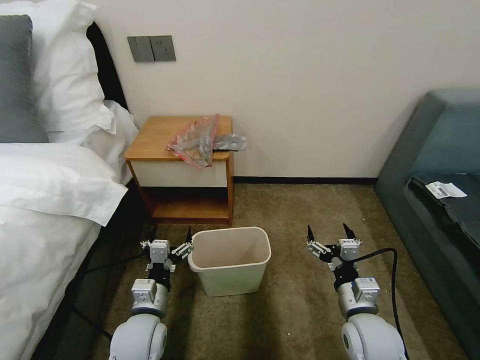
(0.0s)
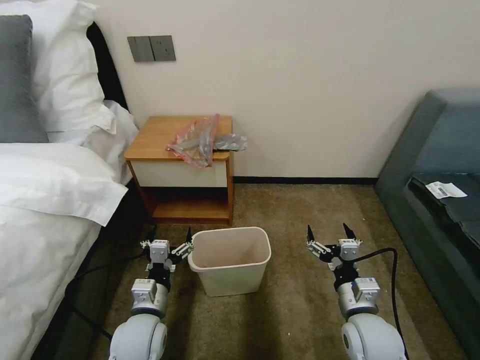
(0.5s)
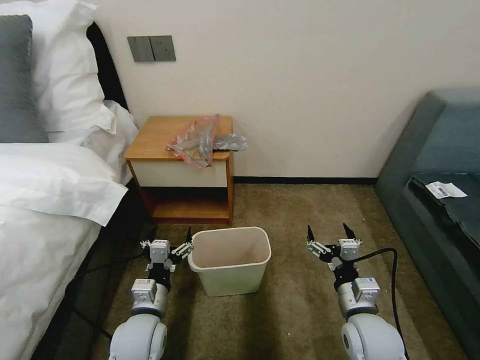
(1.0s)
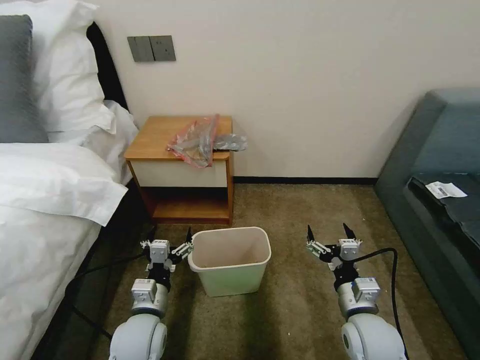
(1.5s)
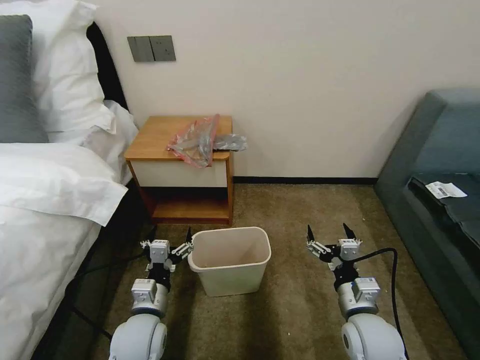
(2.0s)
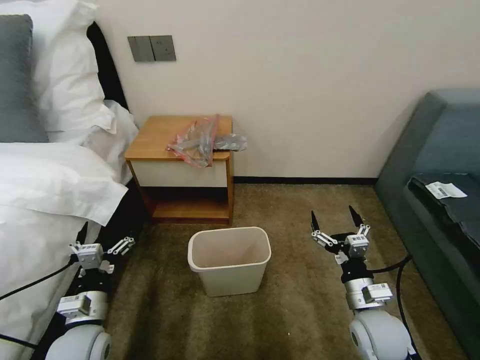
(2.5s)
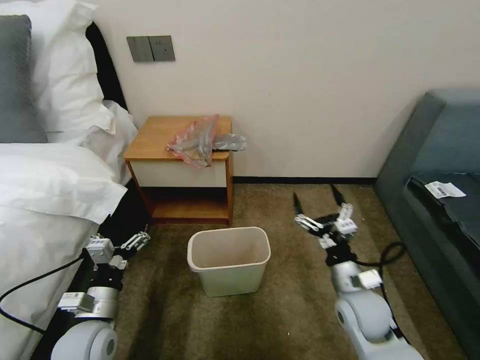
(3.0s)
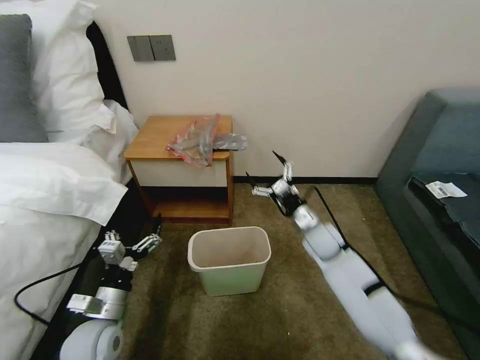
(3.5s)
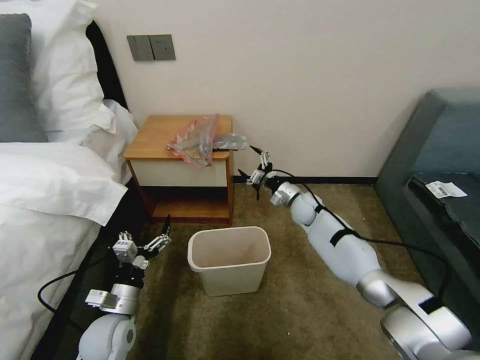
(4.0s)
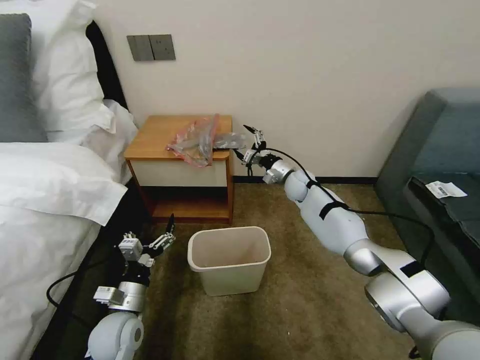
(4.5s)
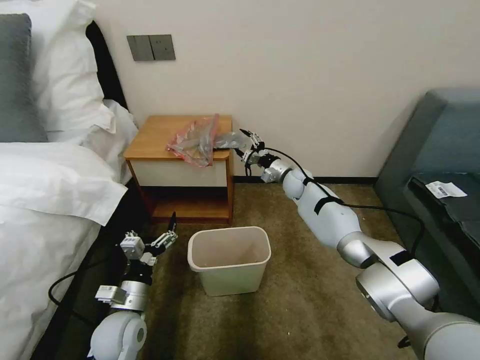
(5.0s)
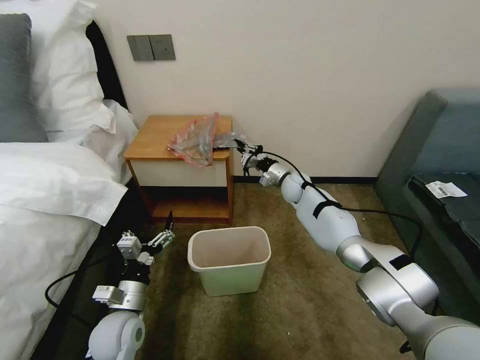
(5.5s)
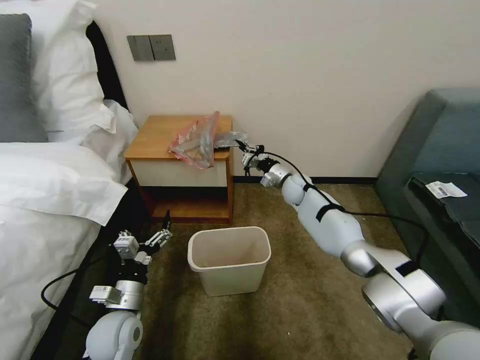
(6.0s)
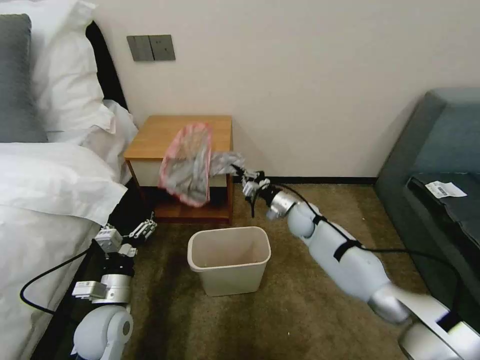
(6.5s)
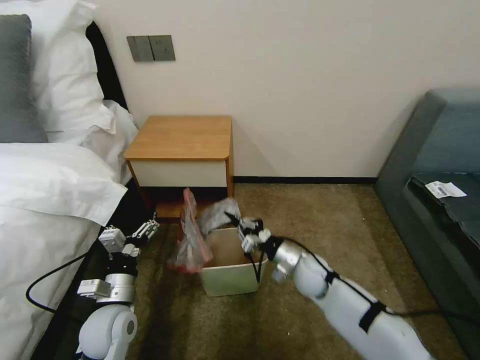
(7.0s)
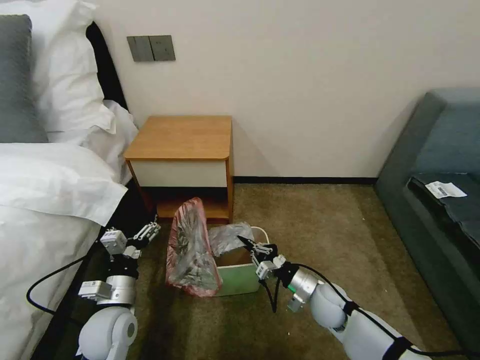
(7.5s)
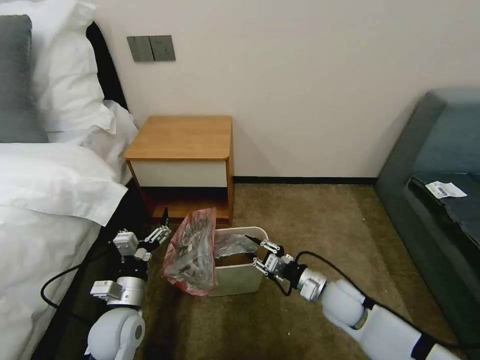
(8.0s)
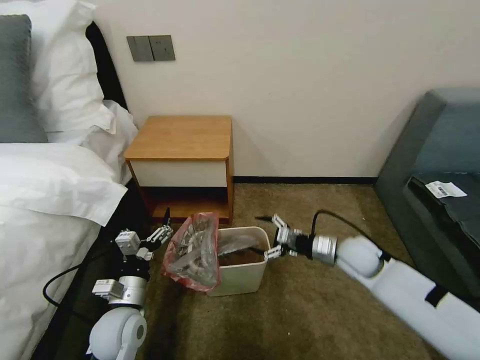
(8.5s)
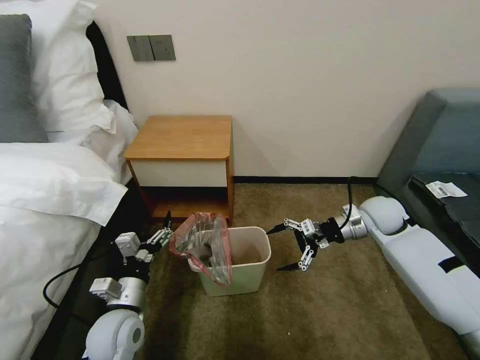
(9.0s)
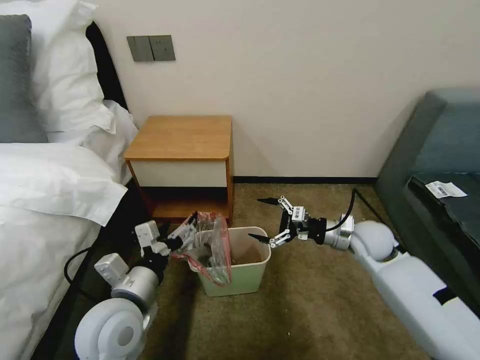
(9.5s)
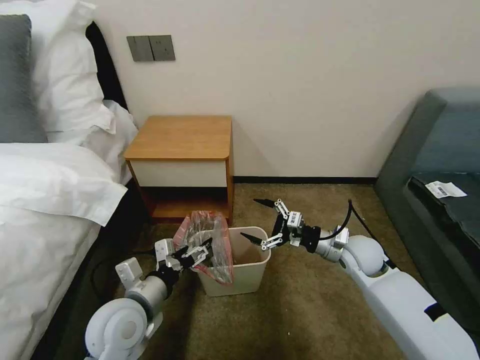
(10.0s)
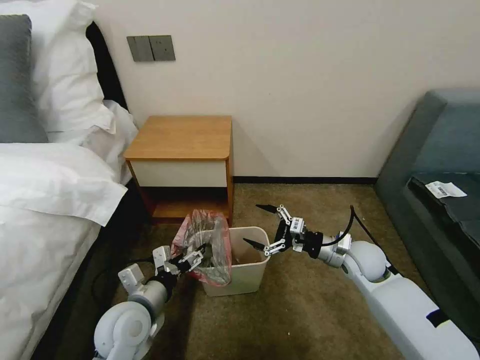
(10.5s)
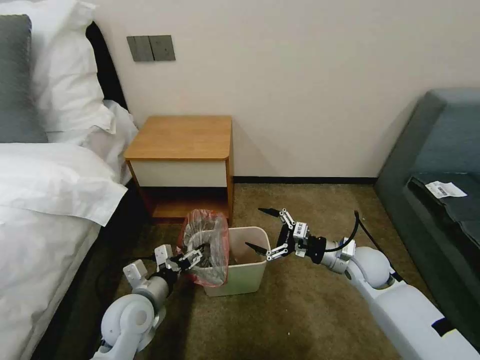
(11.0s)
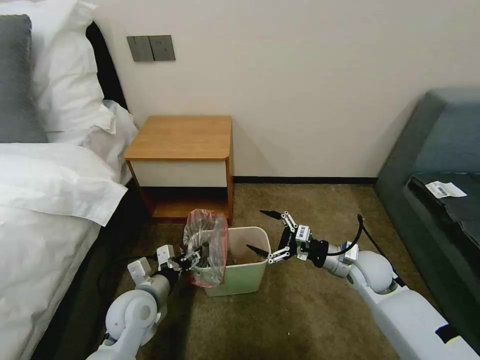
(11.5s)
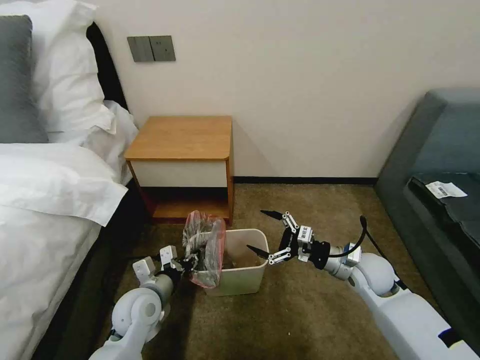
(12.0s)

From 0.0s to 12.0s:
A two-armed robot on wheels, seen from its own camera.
Task of the whole recording: Pick up the garbage bag from the table and place it over the trash can.
From 2.0s to 4.0s: The right gripper heads forward, covering roughly 35 cm, while the left gripper is displaced to the left by some 10 cm.
From 4.0s to 6.0s: The right gripper heads forward, covering about 5 cm, and closes its fingers.
From 6.0s to 8.0s: The right gripper moves backward, some 30 cm.
From 8.0s to 10.0s: The right gripper is displaced forward and upward by about 10 cm, and opens up; the left gripper is displaced upward by some 10 cm.
From 10.0s to 12.0s: The left gripper moves downward, about 10 cm, and closes its fingers.

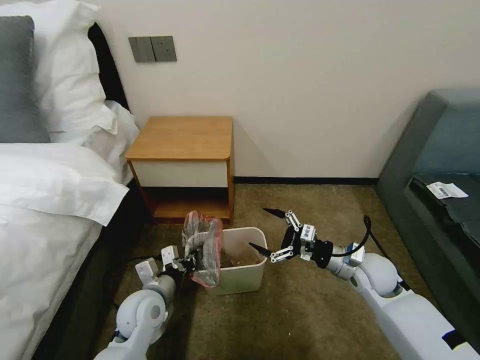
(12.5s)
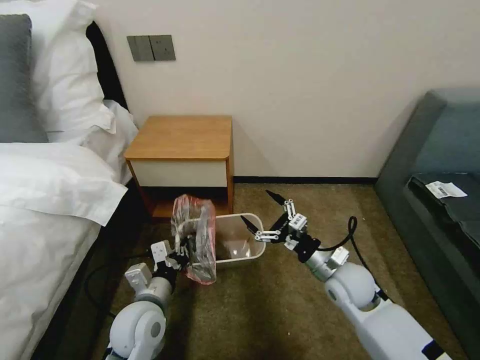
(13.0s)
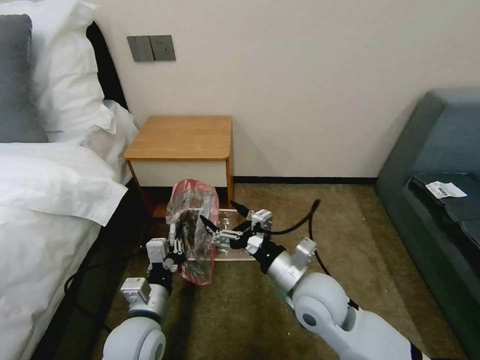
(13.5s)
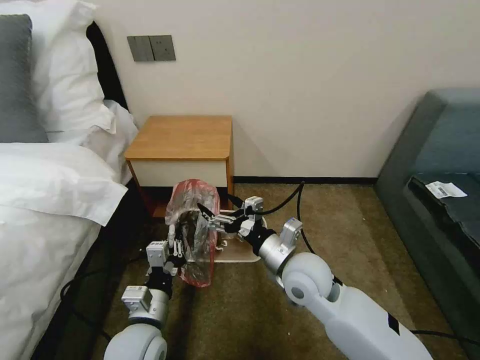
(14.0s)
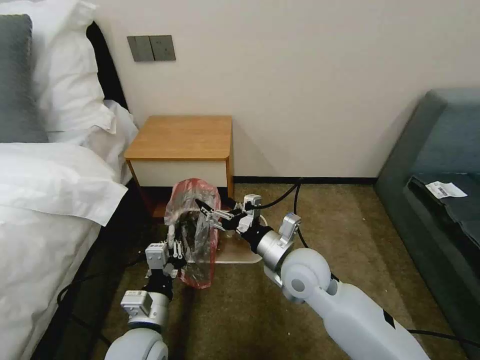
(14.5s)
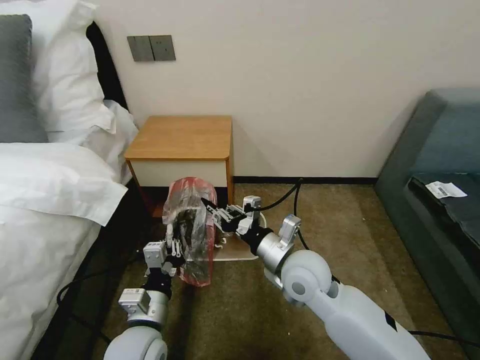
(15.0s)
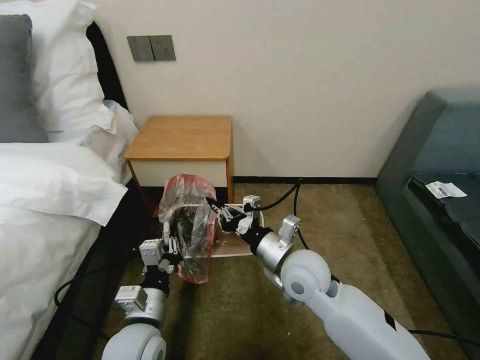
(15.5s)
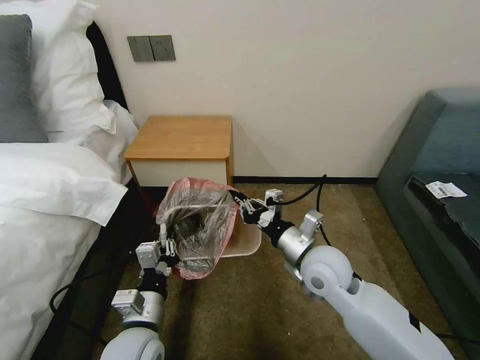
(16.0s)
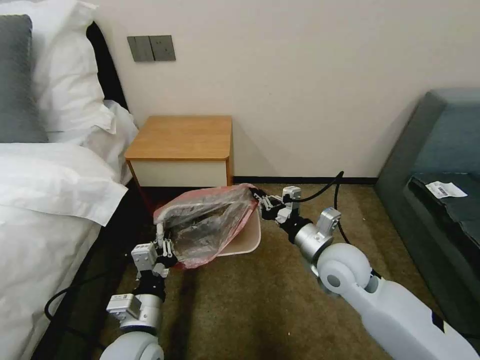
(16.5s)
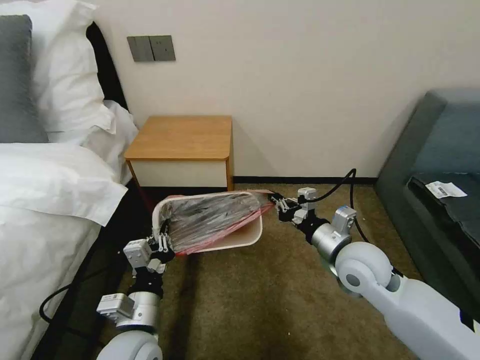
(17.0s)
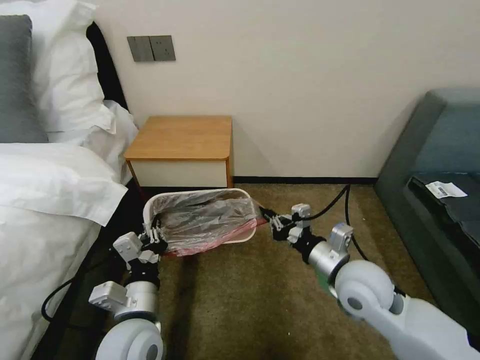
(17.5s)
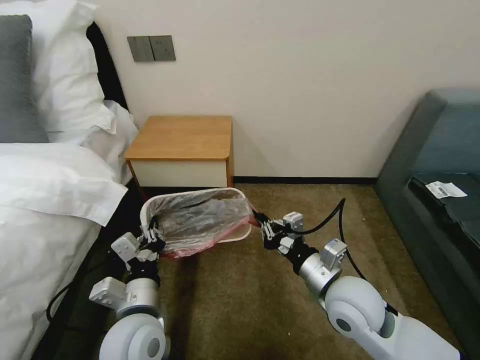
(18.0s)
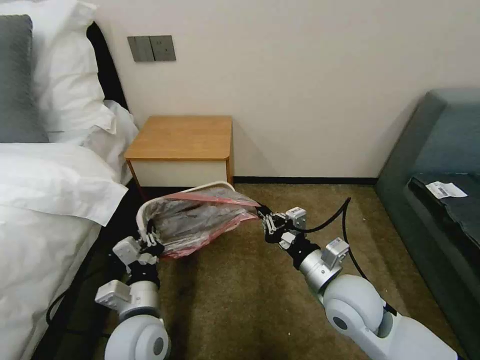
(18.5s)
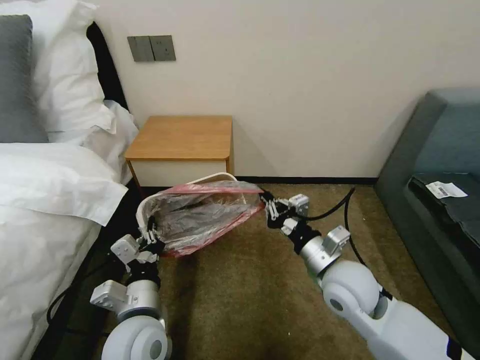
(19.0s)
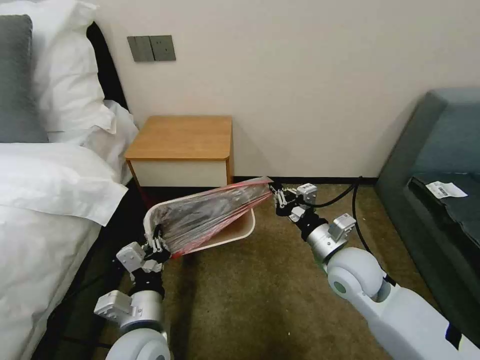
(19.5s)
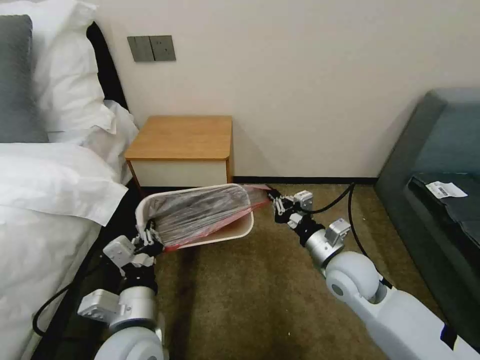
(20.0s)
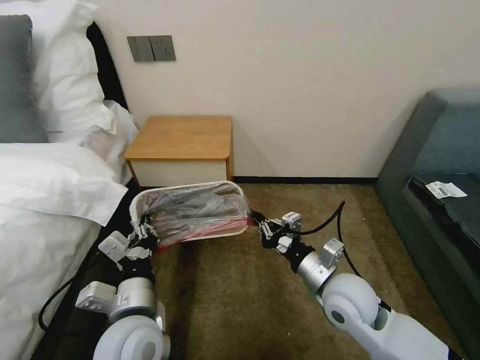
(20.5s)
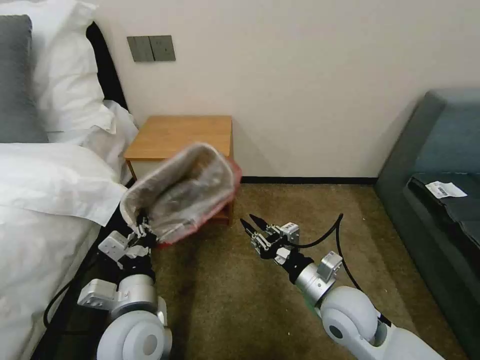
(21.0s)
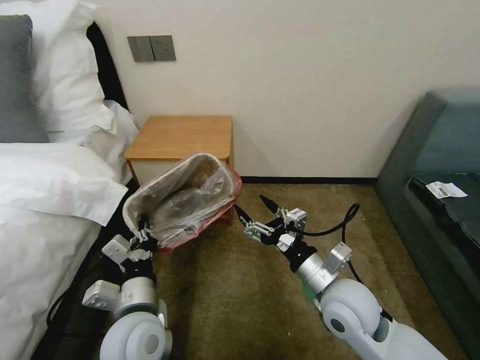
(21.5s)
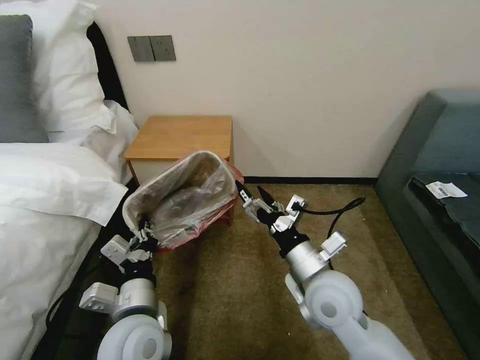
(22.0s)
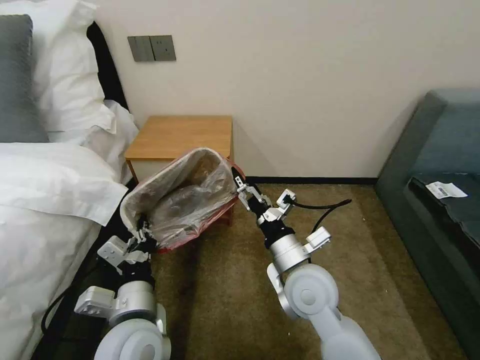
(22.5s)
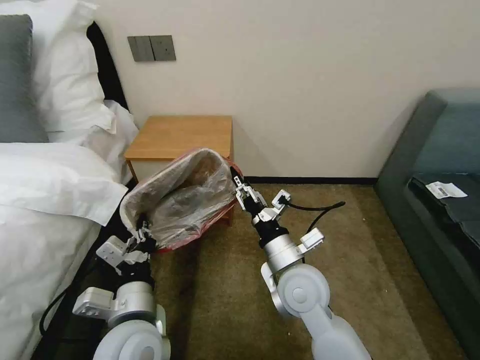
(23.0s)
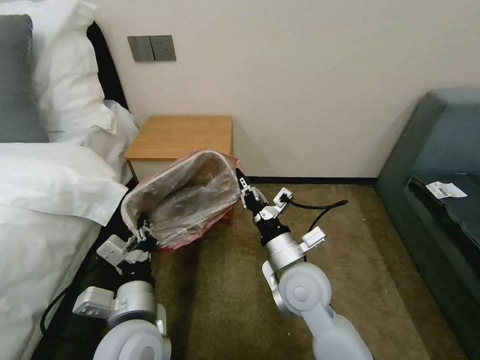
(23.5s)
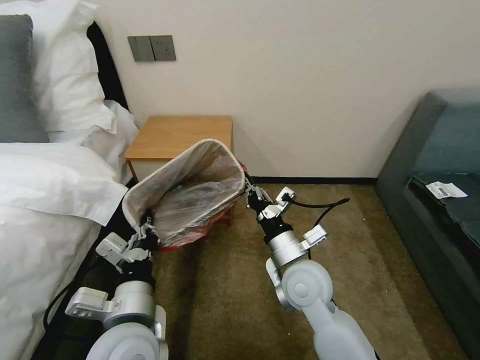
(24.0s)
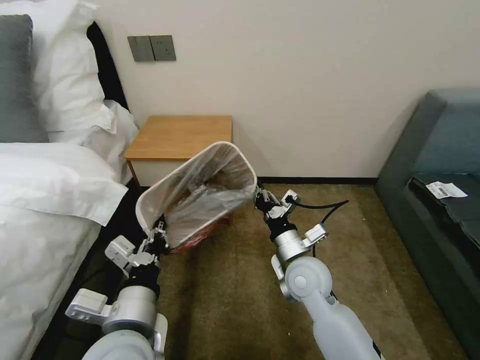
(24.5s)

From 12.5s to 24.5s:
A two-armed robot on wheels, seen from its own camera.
Task of the whole recording: Pick up the garbage bag from the table and place it over the trash can.
From 12.5s to 14.5s: The right gripper is displaced to the left and upward by about 20 cm, while the left gripper travels backward by approximately 10 cm.
From 14.5s to 16.5s: The right gripper goes some 5 cm to the right, and closes its fingers.
From 16.5s to 18.5s: The right gripper shifts some 5 cm backward.
From 20.5s to 22.5s: The right gripper heads to the left, covering about 10 cm, and opens up.
From 22.5s to 24.5s: The right gripper changes place by approximately 5 cm, and closes up.

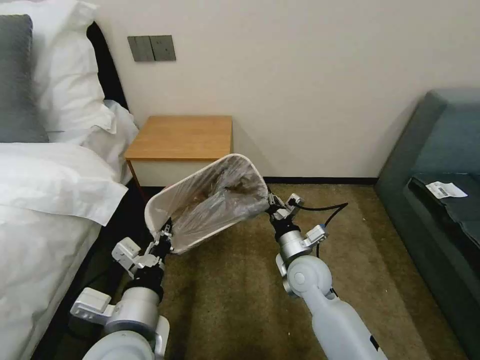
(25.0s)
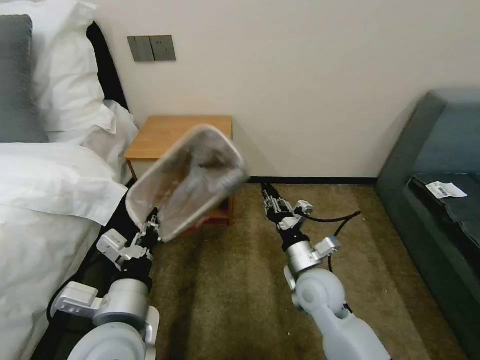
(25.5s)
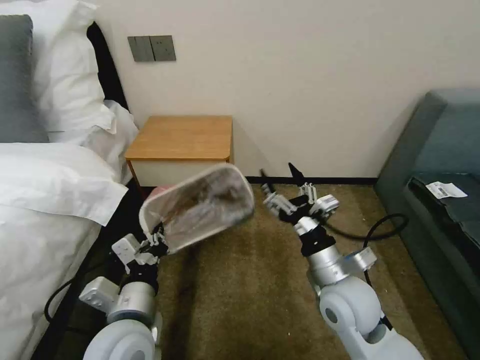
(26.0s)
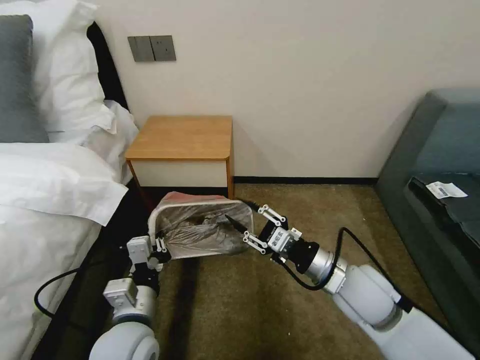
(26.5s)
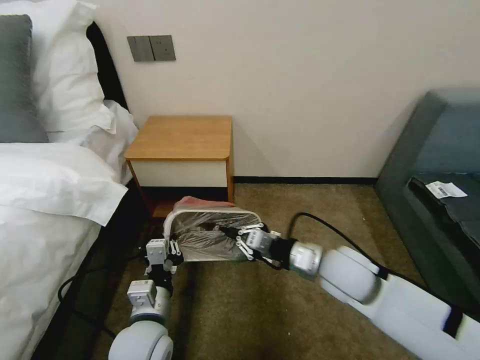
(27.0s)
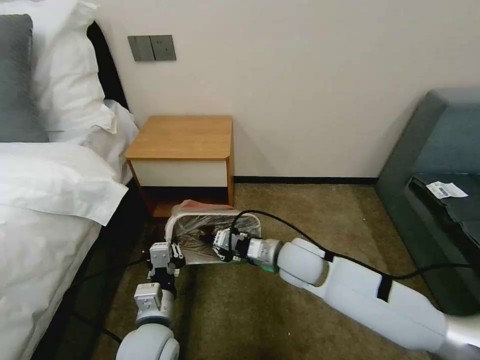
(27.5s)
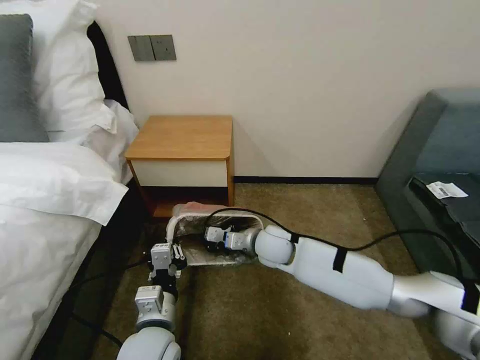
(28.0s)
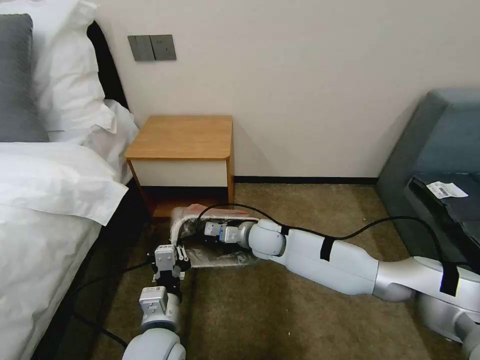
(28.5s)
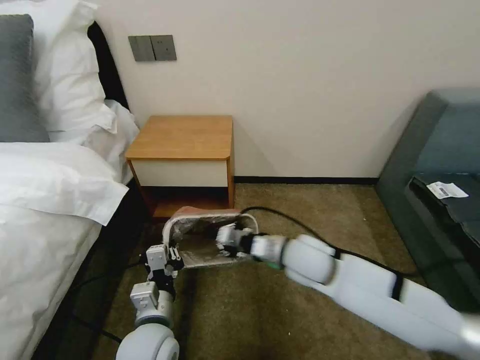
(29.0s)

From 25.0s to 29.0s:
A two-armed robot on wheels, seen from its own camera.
Task of the whole recording: Pick up the garbage bag from the table and place it over the trash can.
From 25.0s to 27.0s: The right gripper goes about 10 cm upward, and opens, then closes again; the left gripper heads downward, covering about 10 cm.
From 27.0s to 29.0s: The right gripper shifts about 5 cm to the left.
